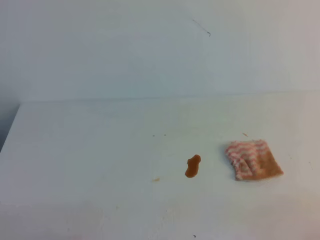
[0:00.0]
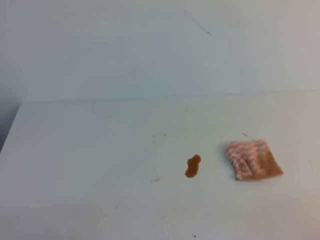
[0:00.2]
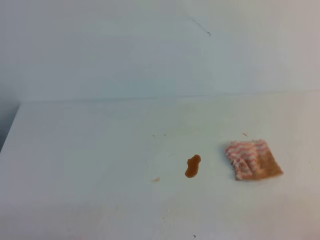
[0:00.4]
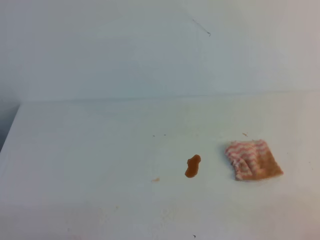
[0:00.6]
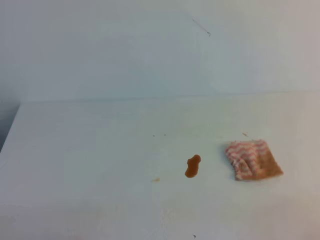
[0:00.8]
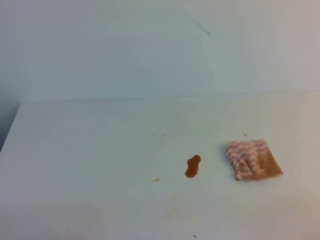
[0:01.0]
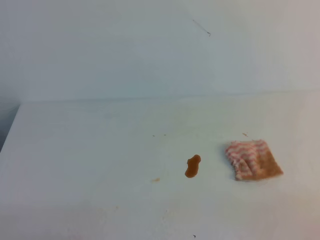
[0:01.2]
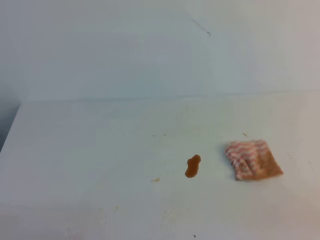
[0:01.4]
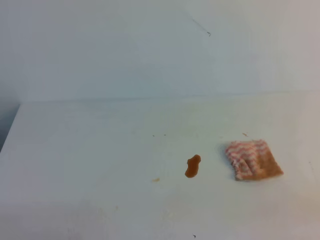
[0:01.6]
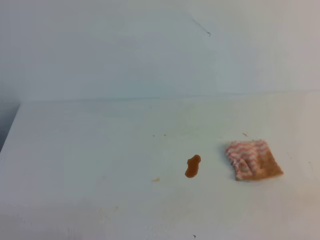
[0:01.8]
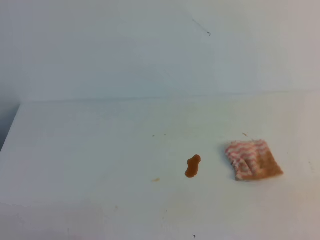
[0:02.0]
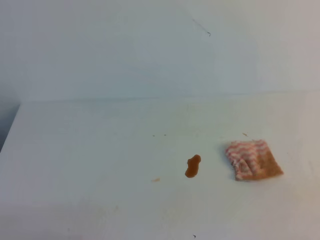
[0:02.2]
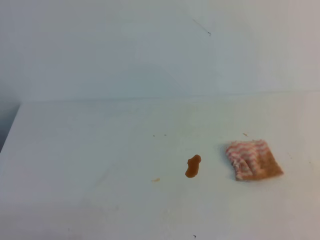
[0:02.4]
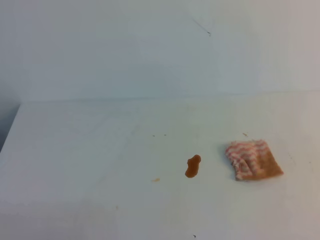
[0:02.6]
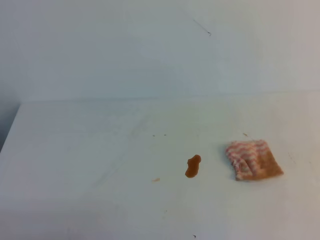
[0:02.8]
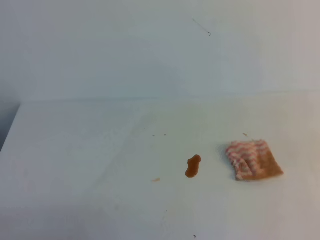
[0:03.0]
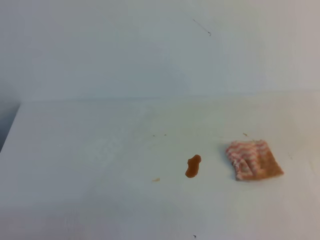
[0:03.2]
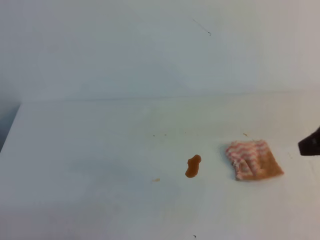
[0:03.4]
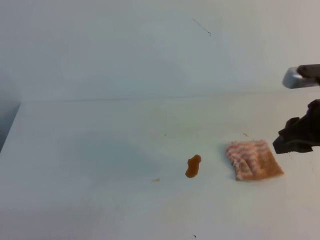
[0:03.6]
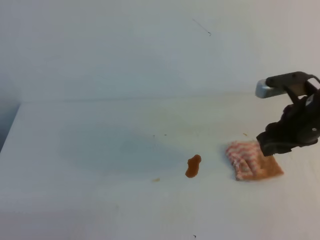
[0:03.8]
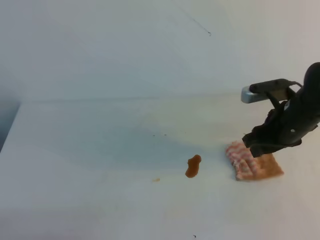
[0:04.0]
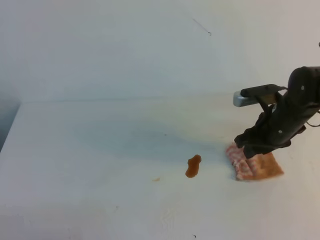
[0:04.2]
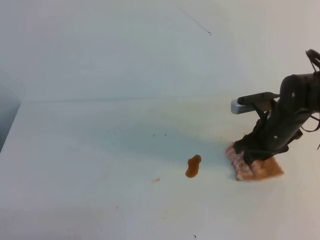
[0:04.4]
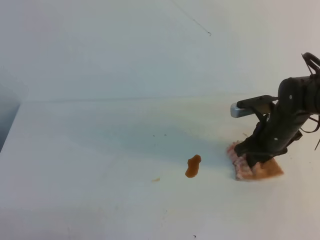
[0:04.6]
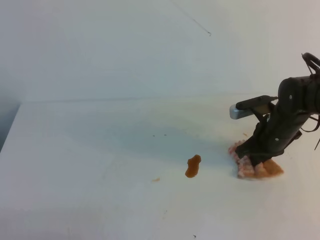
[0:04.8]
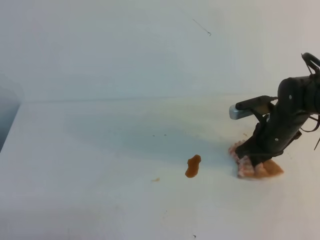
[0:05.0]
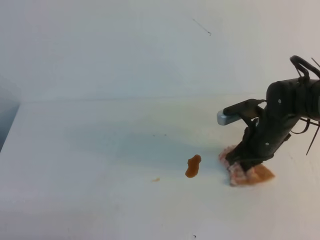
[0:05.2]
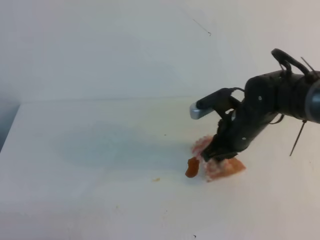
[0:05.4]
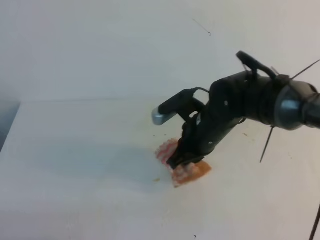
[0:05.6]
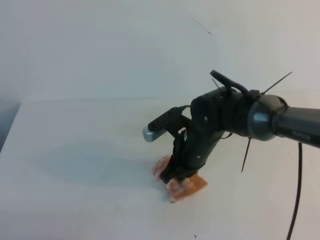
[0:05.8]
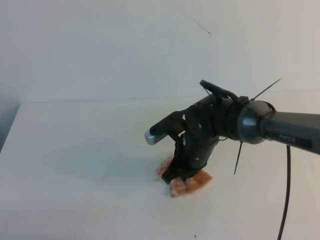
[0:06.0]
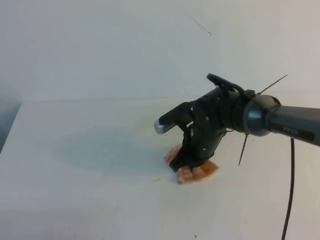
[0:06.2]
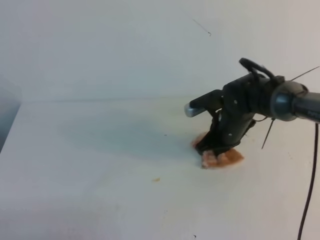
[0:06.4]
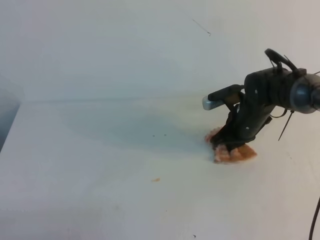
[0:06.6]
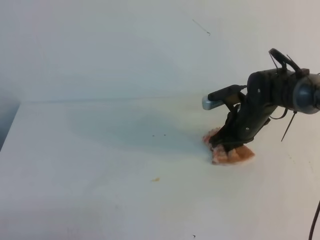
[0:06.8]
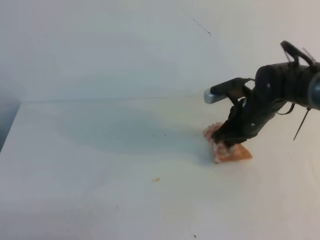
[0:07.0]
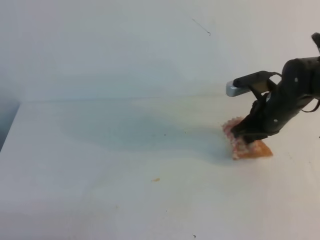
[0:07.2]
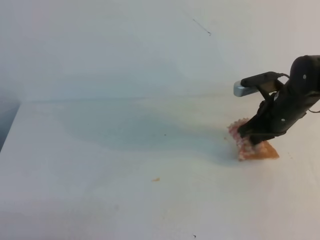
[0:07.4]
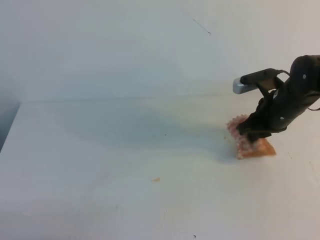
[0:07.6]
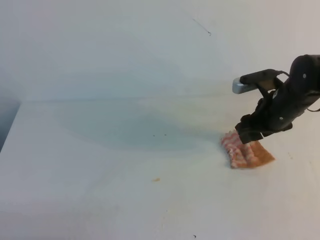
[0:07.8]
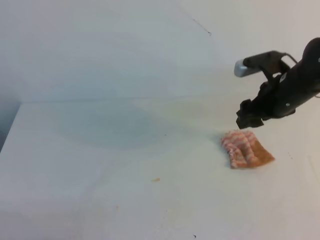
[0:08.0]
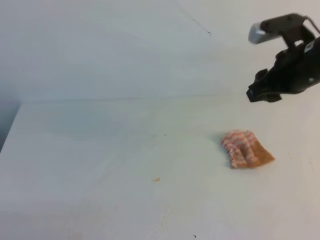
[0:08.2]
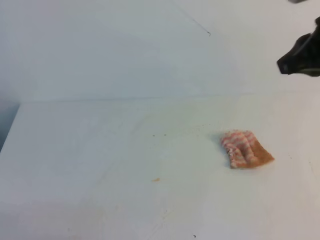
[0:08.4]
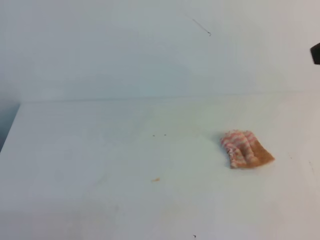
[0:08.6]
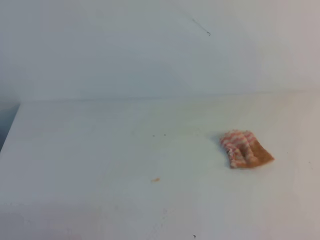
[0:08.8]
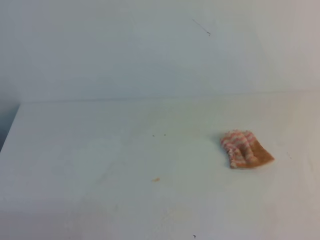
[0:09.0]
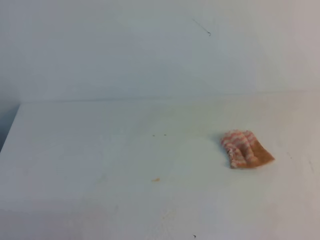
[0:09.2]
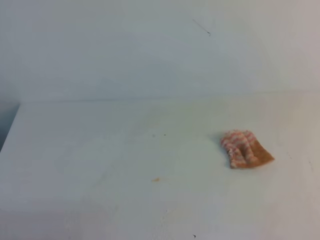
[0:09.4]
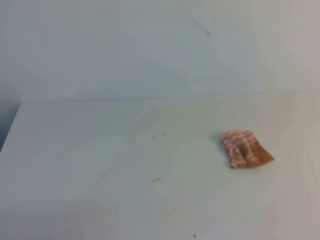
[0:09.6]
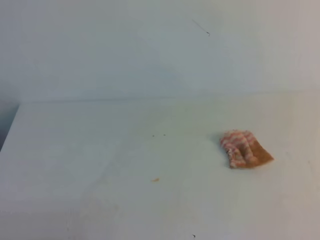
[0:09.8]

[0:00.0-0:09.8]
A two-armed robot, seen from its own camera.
0:02.8 to 0:04.2: The right gripper moves forward, downward and to the left, approximately 30 cm, and opens up.
0:04.2 to 0:05.6: The right gripper heads to the left, covering approximately 10 cm, and closes its fingers.
0:05.6 to 0:07.0: The right gripper is displaced to the right and forward by about 10 cm.
0:07.0 to 0:08.4: The right gripper heads upward and backward, covering about 25 cm, and opens, then closes again.
0:08.4 to 0:09.8: The right gripper is displaced backward and to the right by roughly 20 cm.

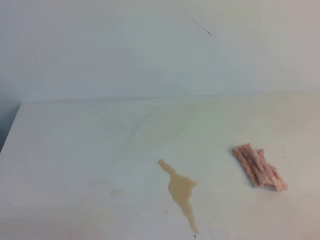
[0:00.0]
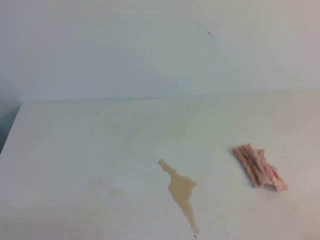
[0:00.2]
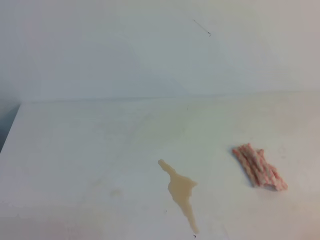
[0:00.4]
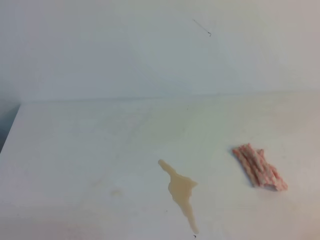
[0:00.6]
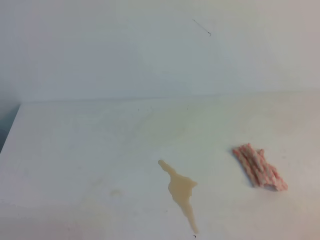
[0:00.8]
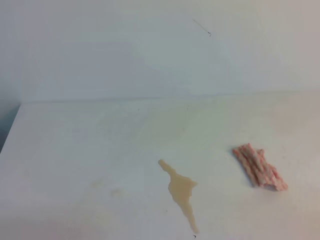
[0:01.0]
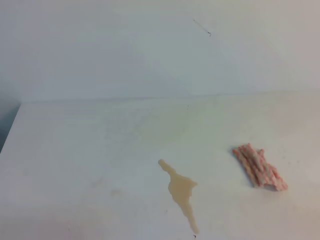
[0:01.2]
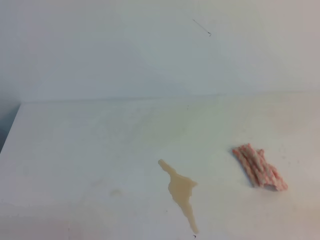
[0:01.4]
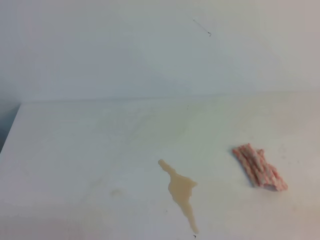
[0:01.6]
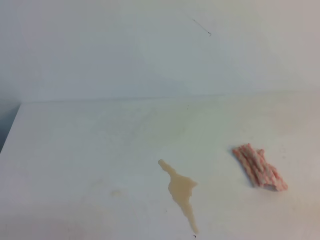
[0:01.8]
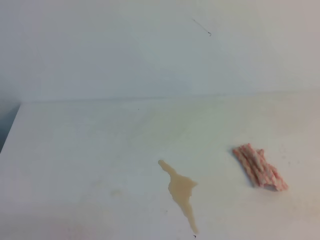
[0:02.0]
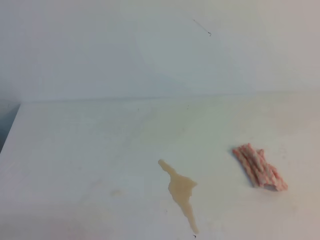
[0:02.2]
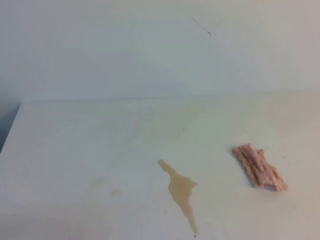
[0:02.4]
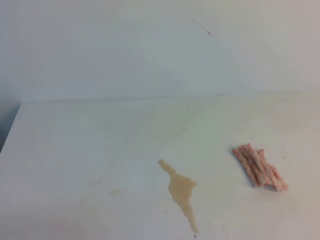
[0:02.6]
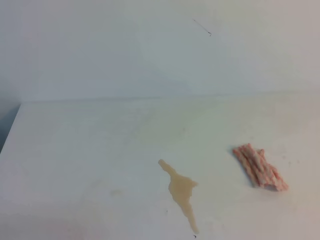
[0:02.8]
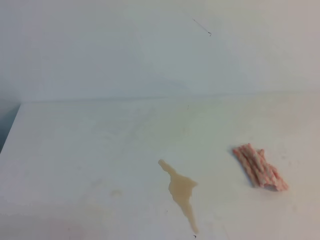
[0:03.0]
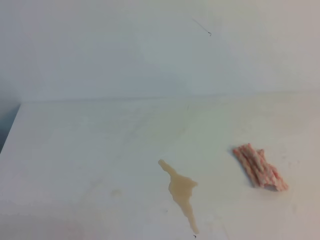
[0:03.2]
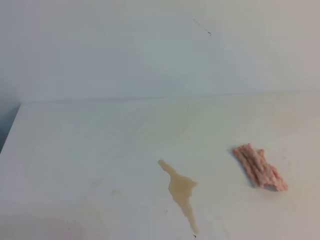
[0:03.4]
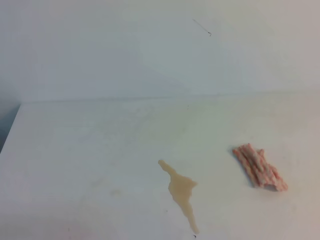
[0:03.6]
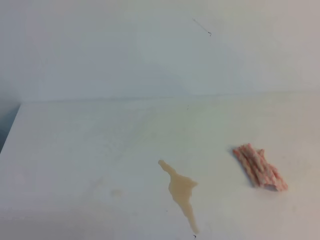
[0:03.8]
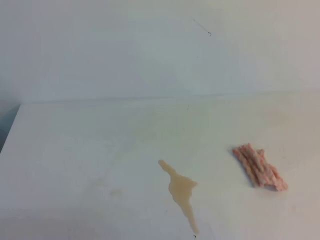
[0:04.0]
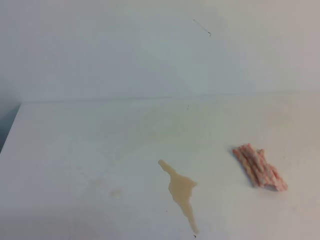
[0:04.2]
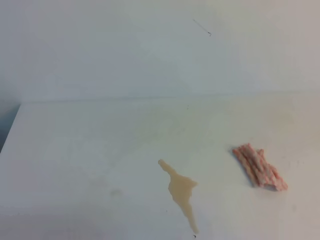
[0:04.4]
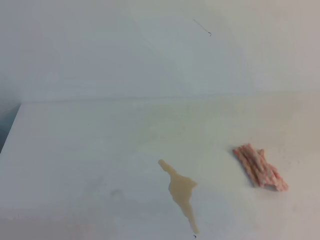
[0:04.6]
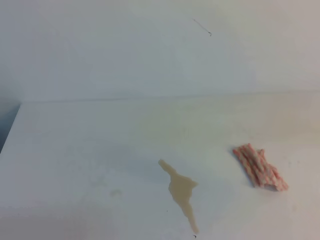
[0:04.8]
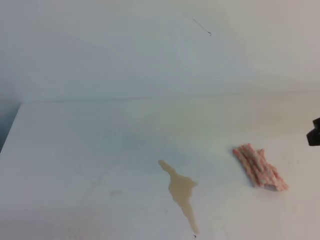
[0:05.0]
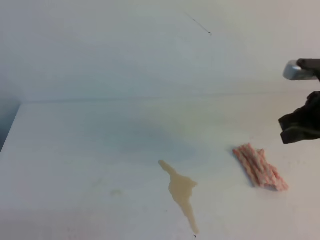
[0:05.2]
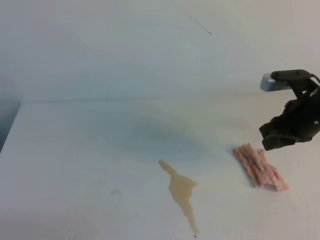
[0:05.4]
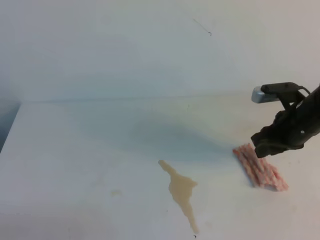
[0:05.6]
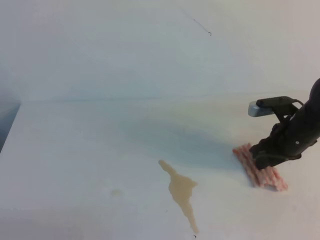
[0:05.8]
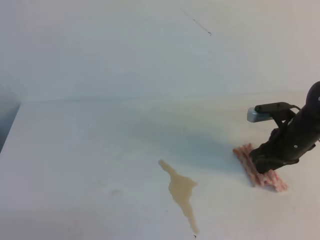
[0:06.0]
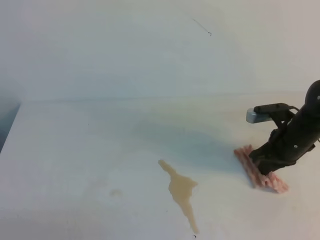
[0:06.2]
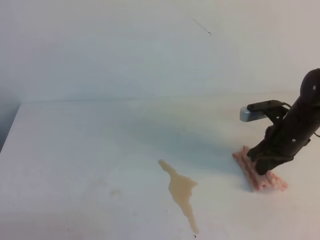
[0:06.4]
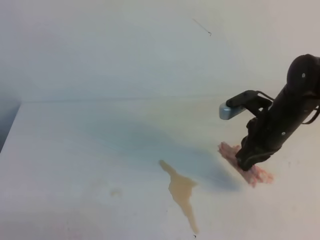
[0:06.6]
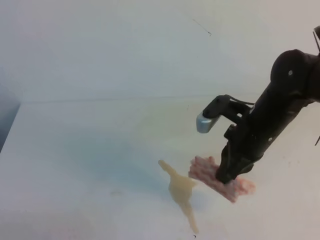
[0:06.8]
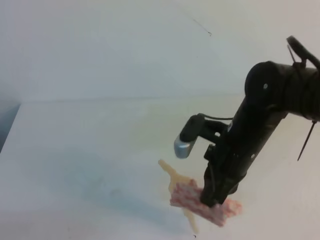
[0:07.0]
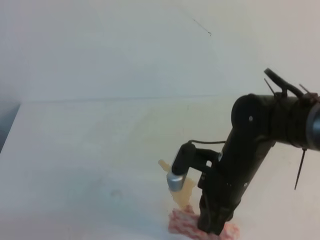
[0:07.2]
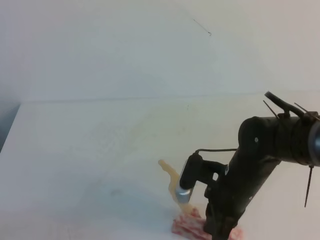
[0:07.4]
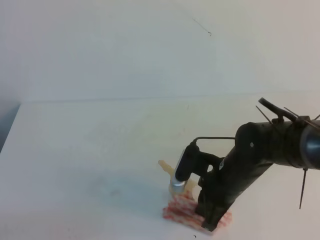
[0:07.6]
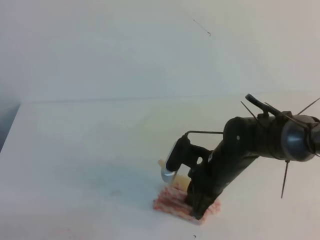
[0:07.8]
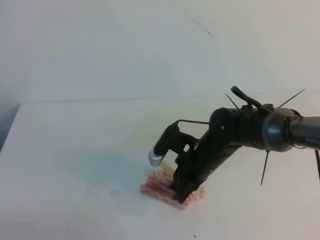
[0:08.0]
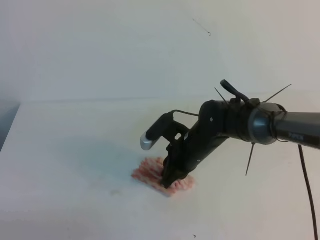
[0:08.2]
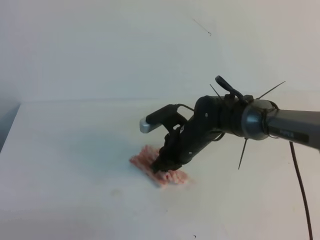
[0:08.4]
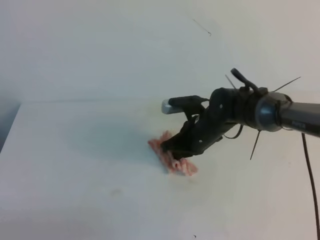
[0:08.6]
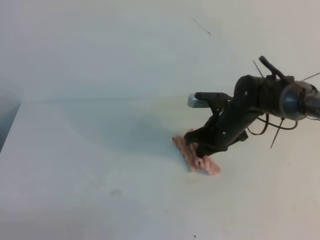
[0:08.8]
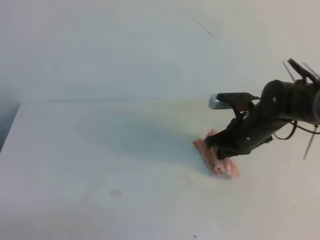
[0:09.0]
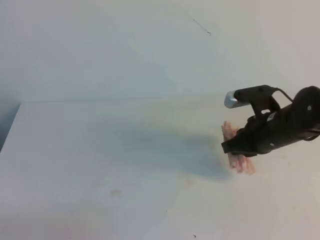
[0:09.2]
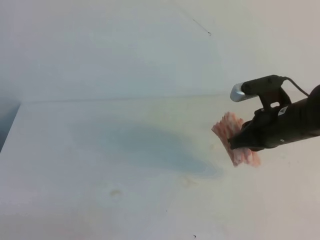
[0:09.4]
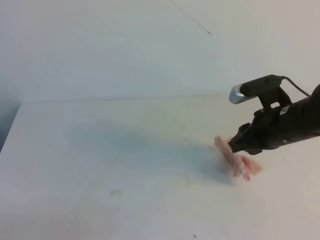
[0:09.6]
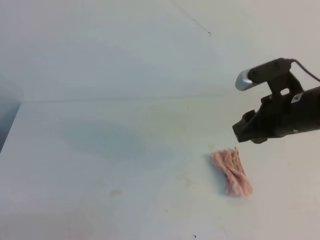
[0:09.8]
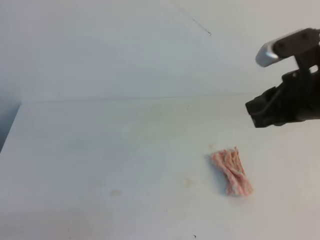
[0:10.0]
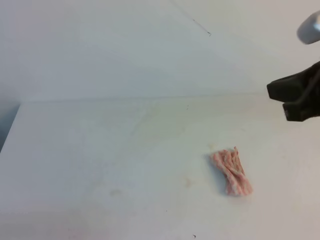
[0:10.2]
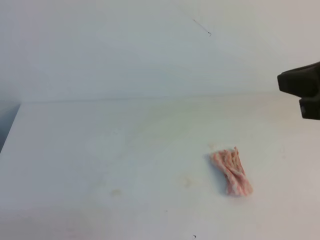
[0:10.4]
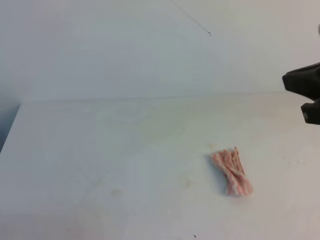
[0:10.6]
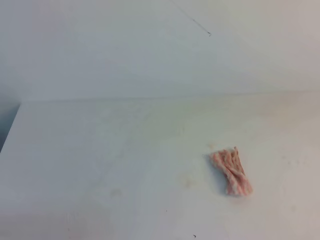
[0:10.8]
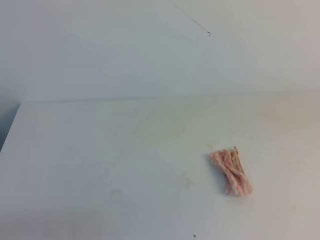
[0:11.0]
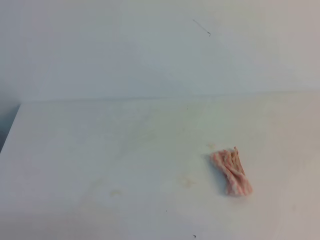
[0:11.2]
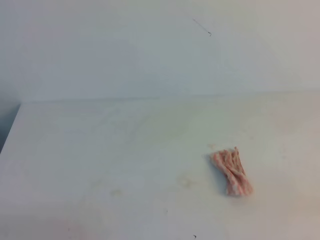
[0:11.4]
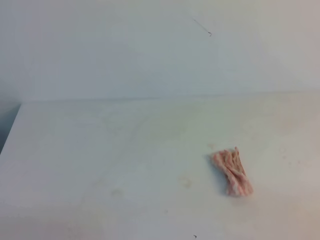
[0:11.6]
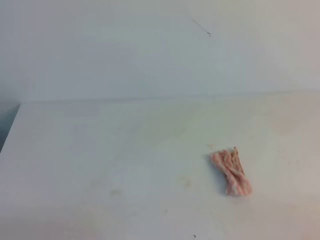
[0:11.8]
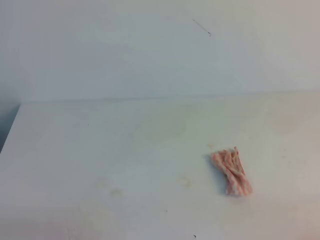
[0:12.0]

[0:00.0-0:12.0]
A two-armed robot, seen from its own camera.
0:04.4 to 0:06.0: The right gripper heads forward and downward, covering some 30 cm, and opens up.
0:06.0 to 0:07.6: The right gripper is displaced to the left and backward by some 15 cm, and closes up.
0:07.6 to 0:09.0: The right gripper is displaced forward by roughly 10 cm.
0:09.0 to 0:10.4: The right gripper travels upward and backward by approximately 30 cm, and opens and closes again.
0:10.4 to 0:12.0: The right gripper is displaced downward, backward and to the right by approximately 30 cm.

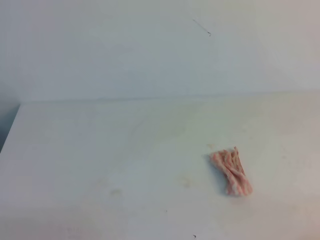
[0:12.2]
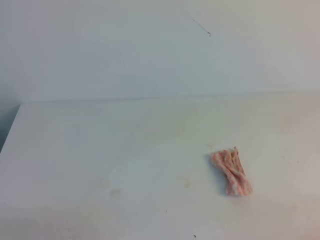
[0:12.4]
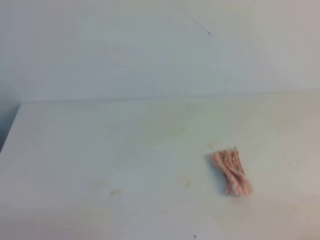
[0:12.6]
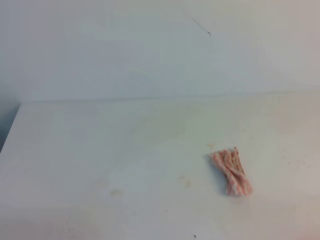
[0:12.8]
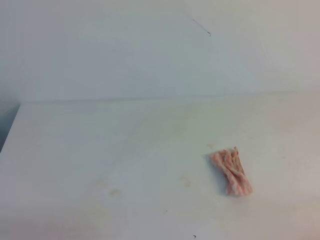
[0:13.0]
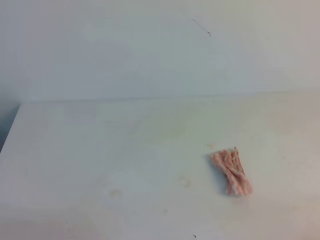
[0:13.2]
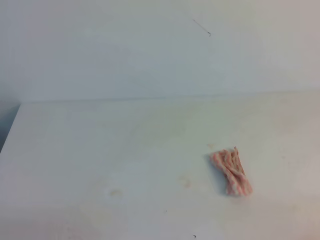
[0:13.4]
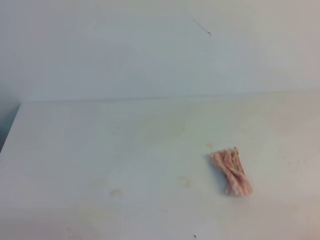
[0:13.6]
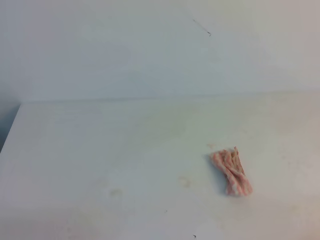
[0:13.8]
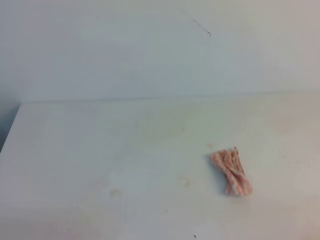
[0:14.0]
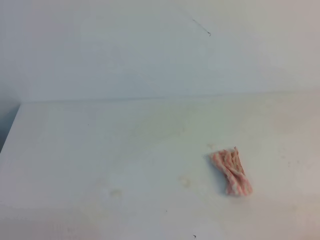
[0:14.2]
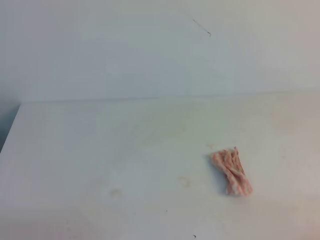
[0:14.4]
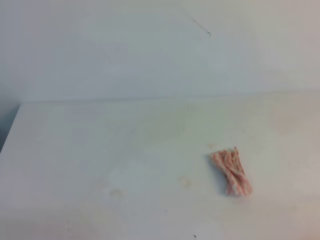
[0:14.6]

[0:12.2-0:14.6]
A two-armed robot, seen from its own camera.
0:12.2 to 0:14.6: The two grippers keep their place.
